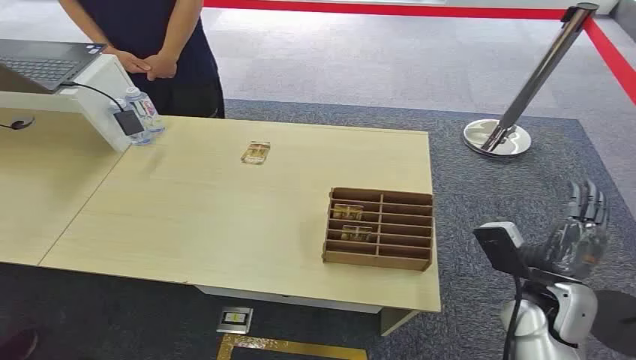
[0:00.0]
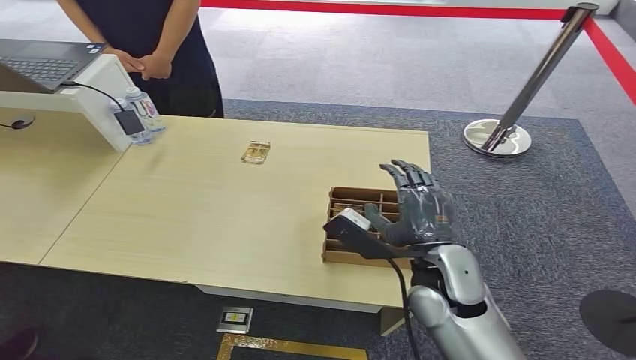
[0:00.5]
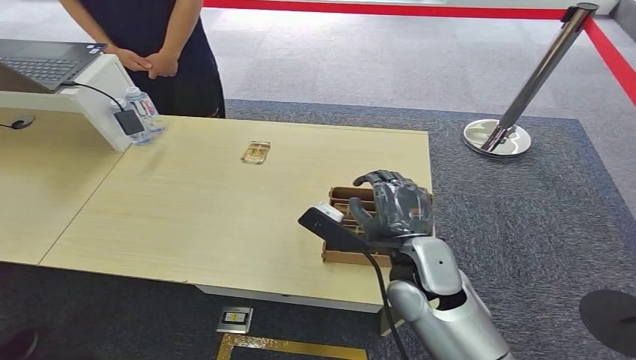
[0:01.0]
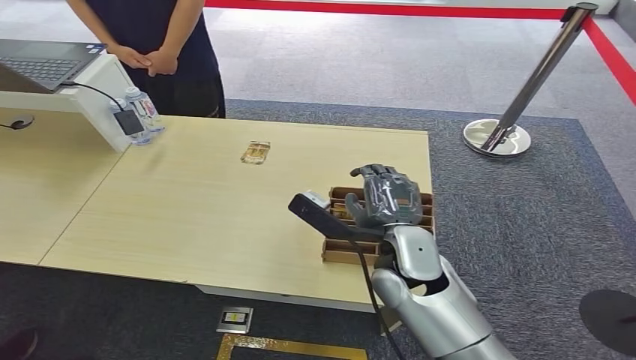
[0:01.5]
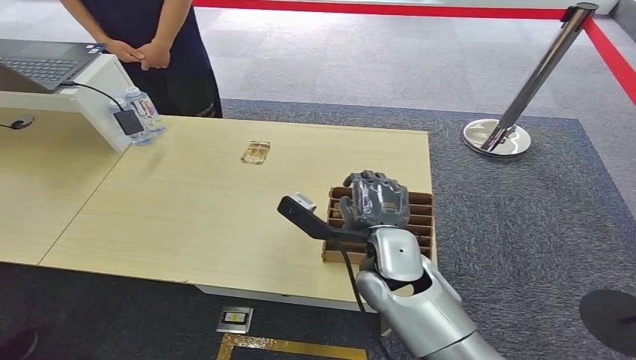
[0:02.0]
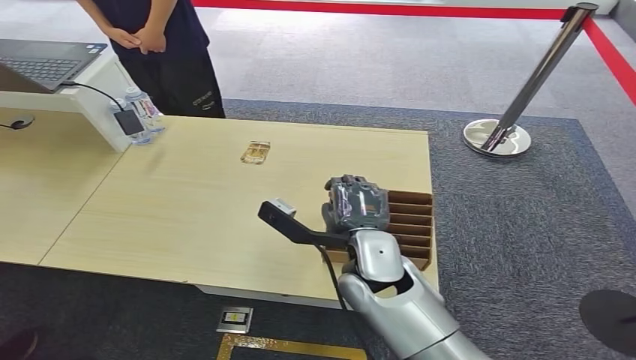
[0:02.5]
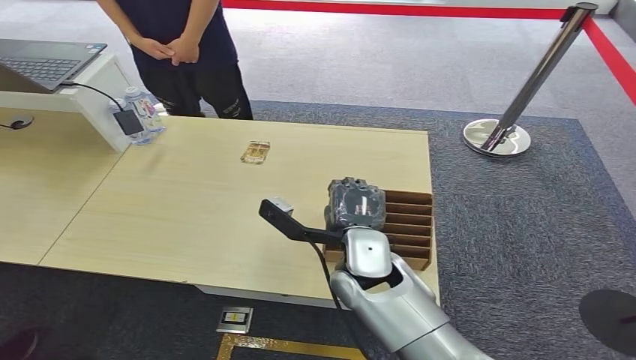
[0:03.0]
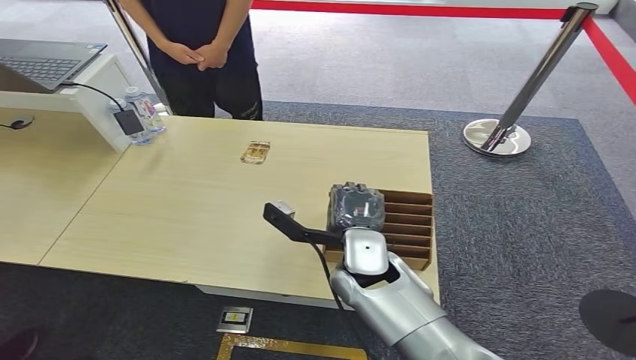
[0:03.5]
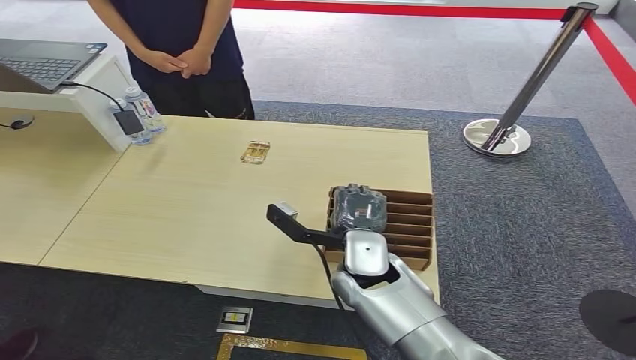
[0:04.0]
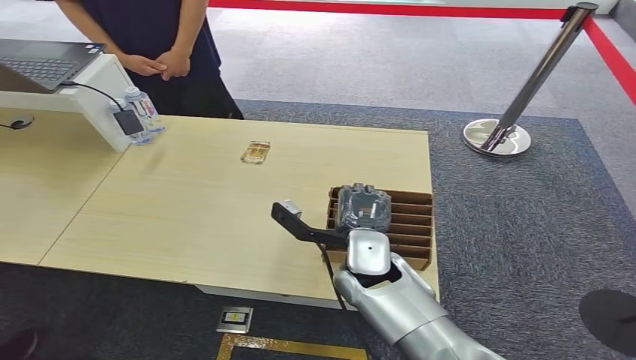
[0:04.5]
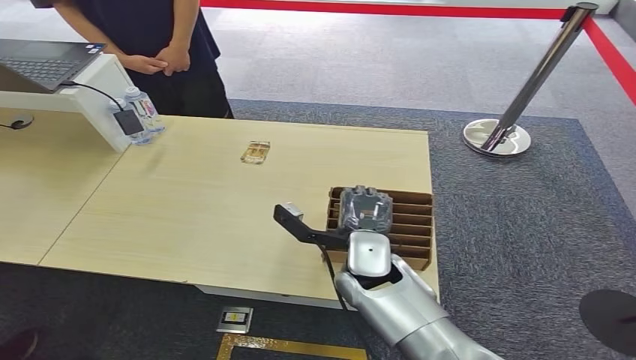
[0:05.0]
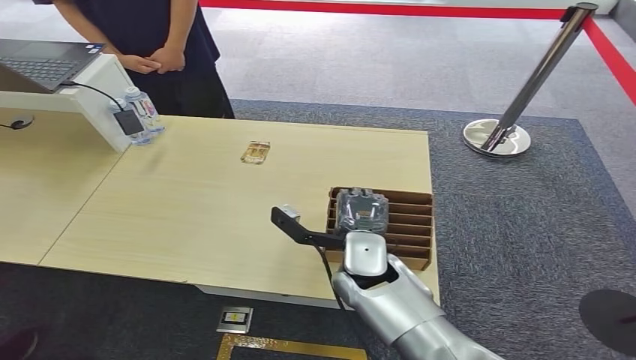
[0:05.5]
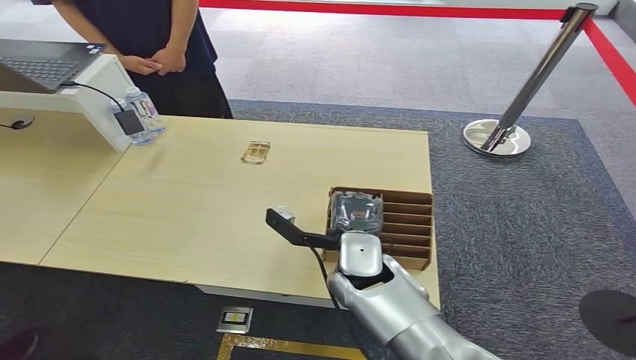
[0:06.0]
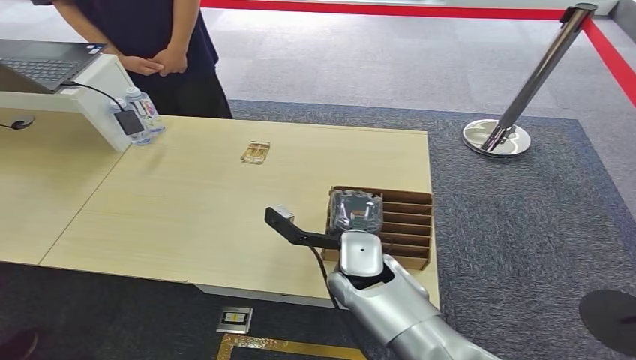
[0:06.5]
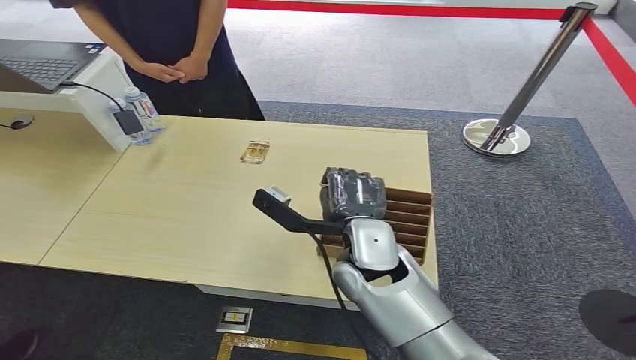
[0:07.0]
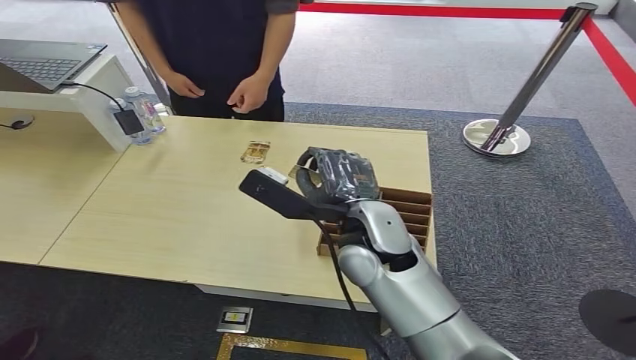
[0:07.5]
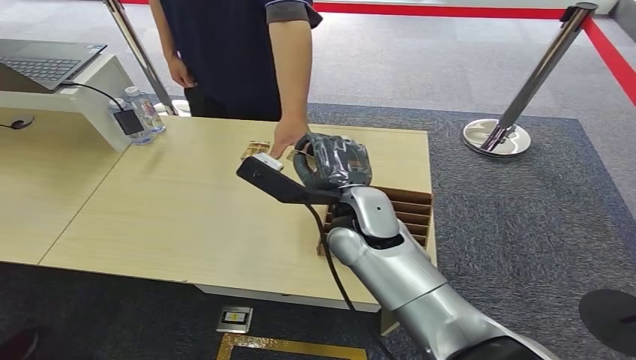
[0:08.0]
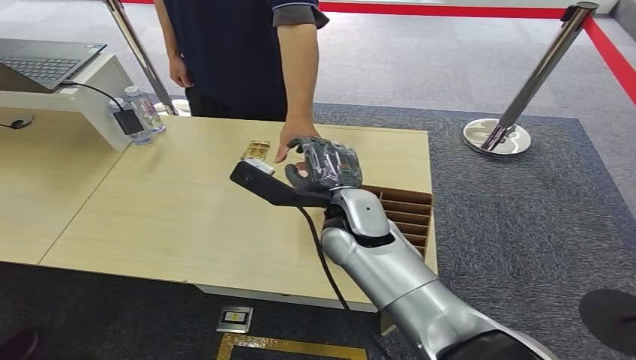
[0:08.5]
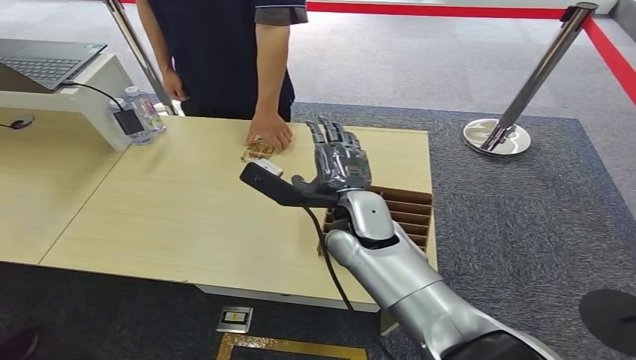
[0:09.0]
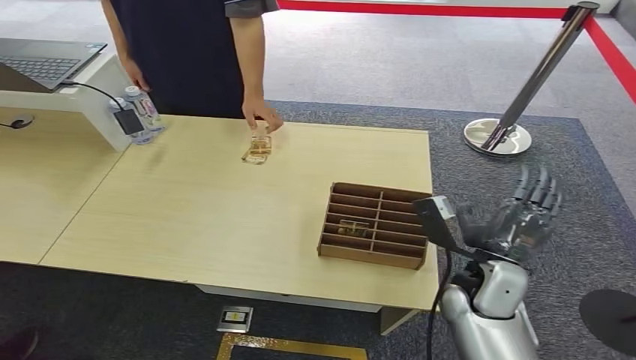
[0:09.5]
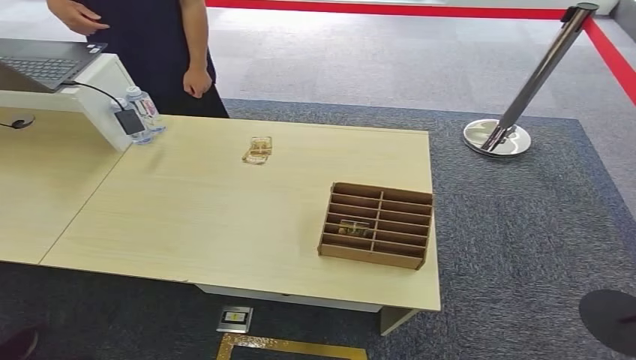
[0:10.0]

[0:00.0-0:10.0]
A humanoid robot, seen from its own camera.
Step, 0:00.0 to 0:07.0: Pick up the key card from the card box.
Step, 0:07.5 to 0:10.0: Hand the key card to the target.
0:02.0 to 0:04.0: The hands move only a little.
0:04.0 to 0:06.0: The two hands keep their place.
